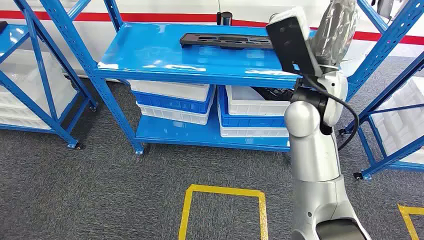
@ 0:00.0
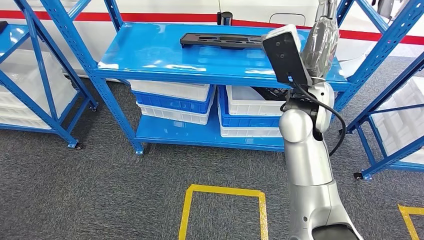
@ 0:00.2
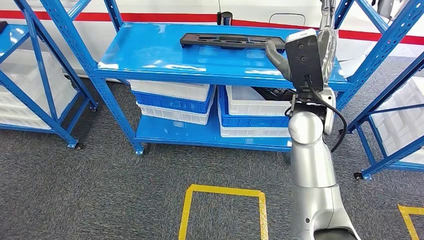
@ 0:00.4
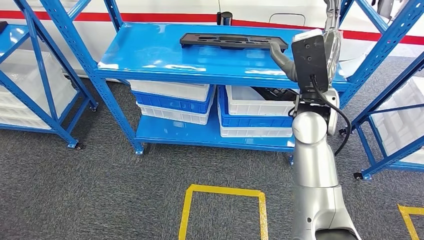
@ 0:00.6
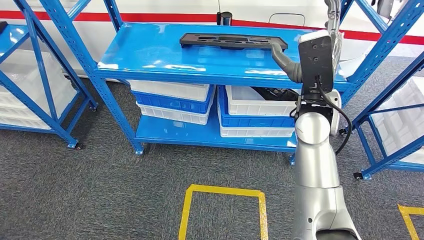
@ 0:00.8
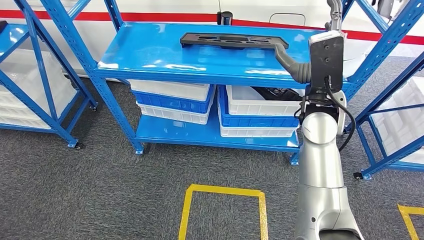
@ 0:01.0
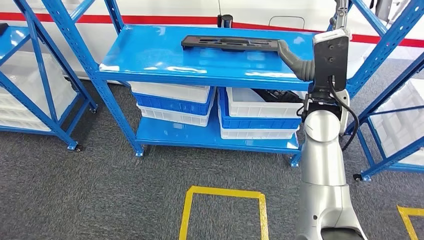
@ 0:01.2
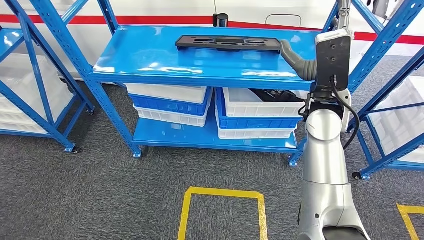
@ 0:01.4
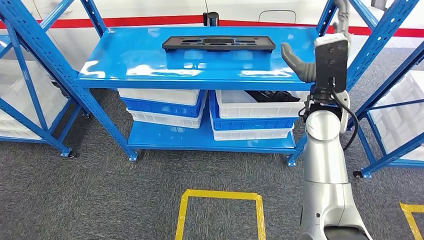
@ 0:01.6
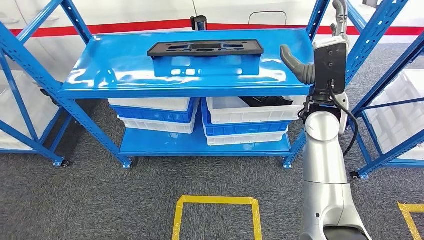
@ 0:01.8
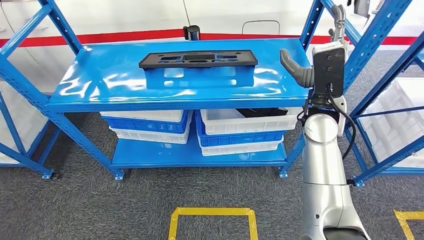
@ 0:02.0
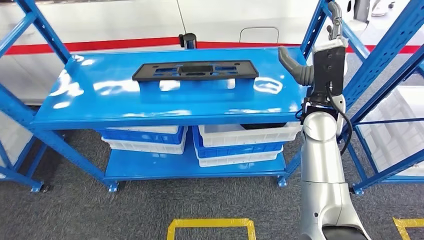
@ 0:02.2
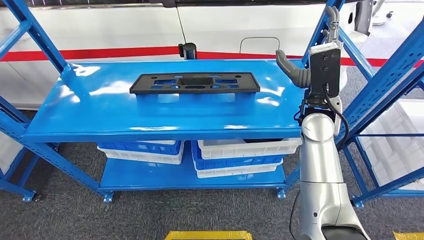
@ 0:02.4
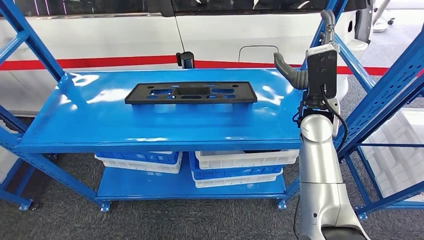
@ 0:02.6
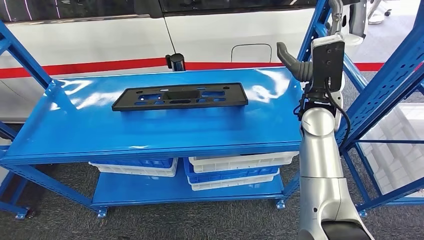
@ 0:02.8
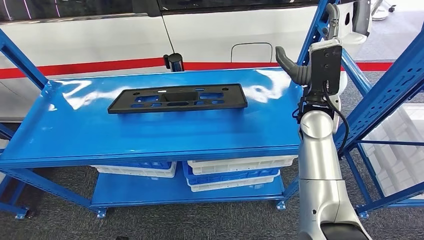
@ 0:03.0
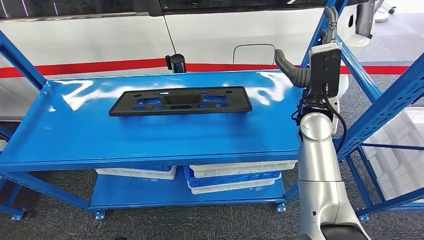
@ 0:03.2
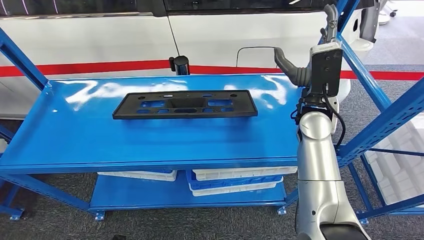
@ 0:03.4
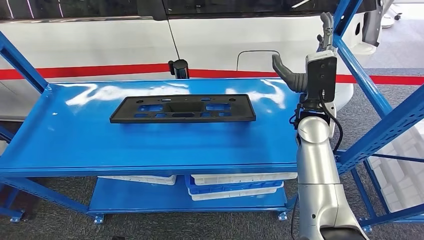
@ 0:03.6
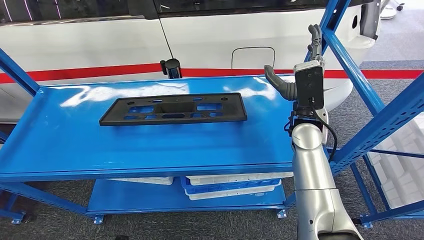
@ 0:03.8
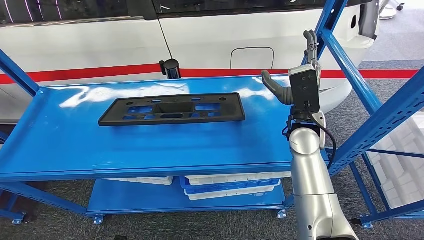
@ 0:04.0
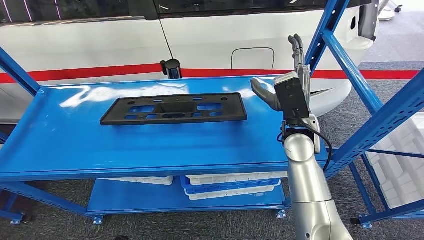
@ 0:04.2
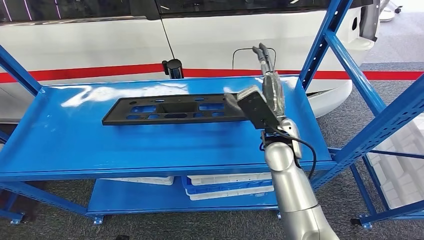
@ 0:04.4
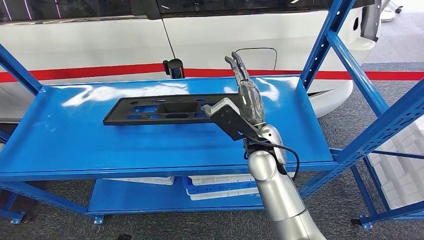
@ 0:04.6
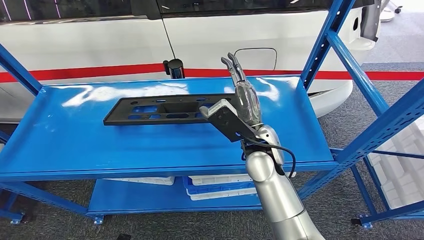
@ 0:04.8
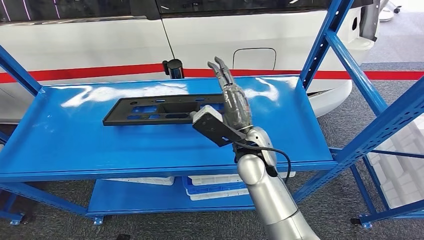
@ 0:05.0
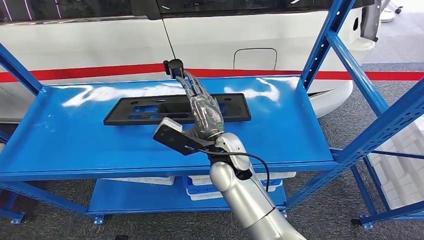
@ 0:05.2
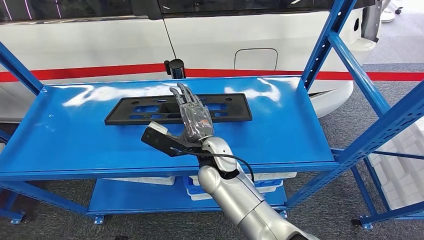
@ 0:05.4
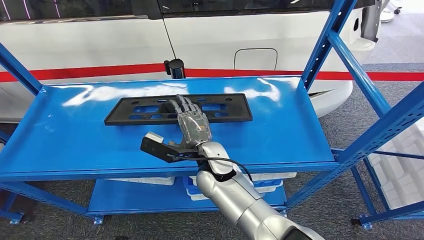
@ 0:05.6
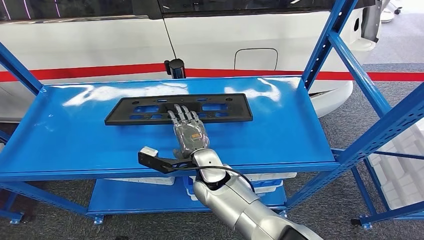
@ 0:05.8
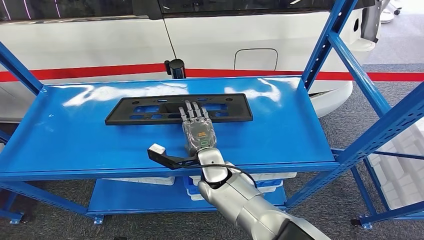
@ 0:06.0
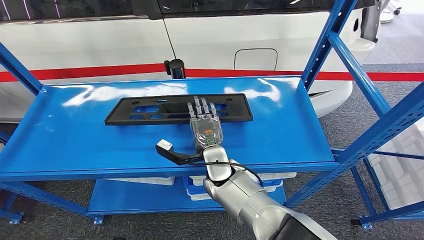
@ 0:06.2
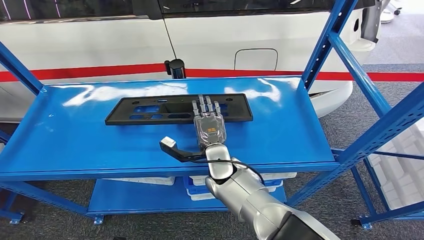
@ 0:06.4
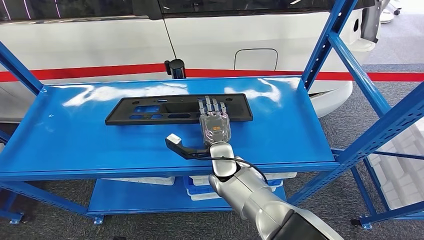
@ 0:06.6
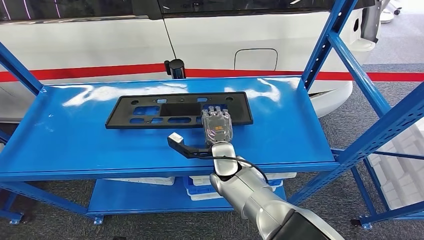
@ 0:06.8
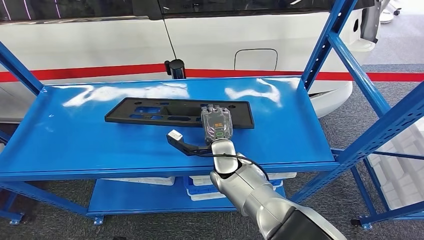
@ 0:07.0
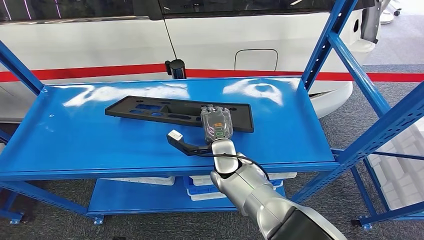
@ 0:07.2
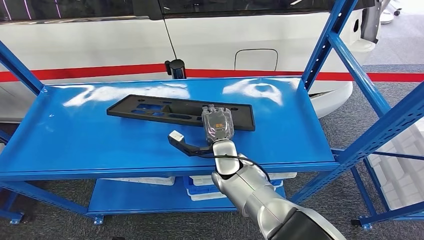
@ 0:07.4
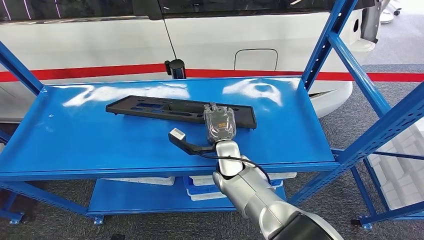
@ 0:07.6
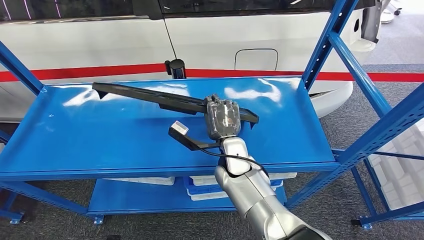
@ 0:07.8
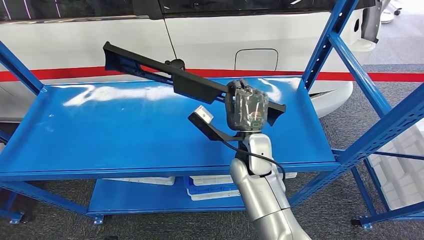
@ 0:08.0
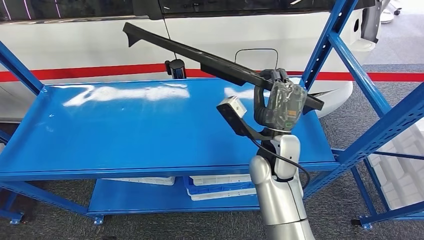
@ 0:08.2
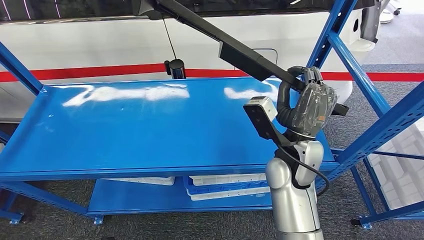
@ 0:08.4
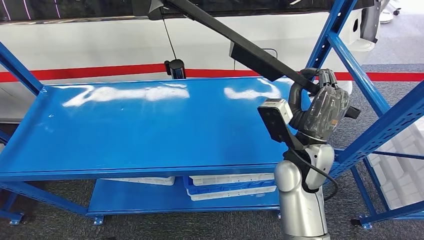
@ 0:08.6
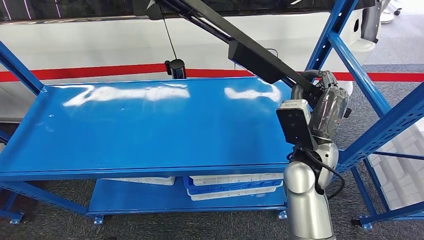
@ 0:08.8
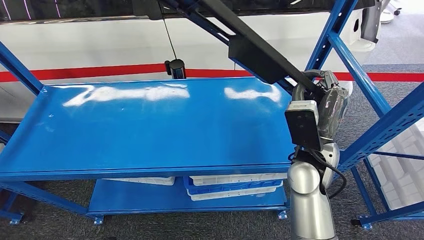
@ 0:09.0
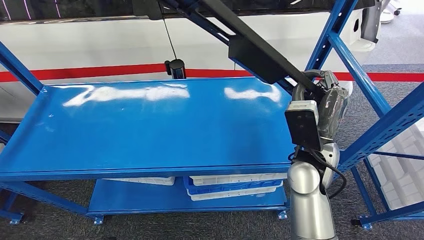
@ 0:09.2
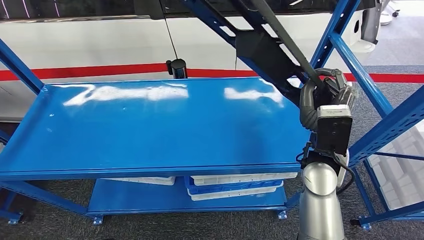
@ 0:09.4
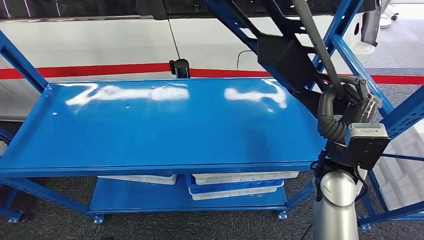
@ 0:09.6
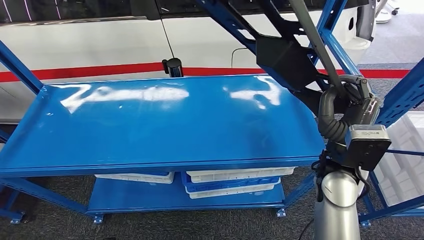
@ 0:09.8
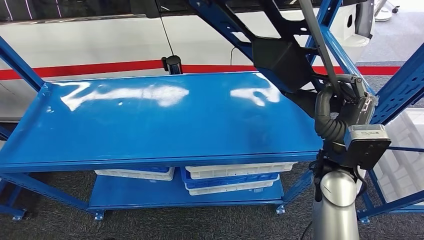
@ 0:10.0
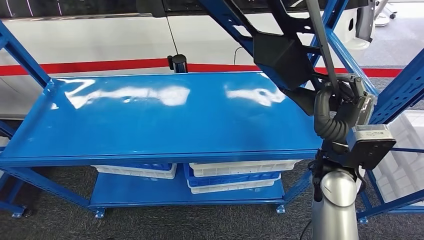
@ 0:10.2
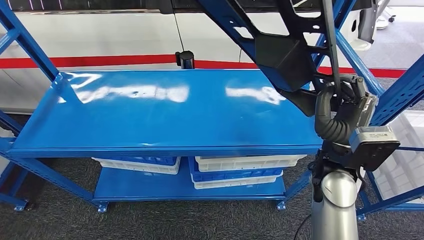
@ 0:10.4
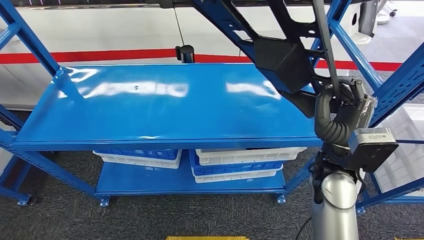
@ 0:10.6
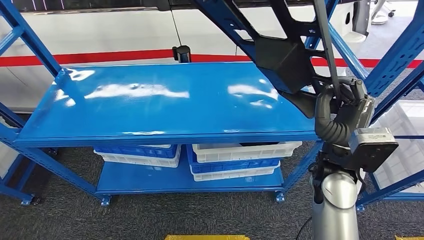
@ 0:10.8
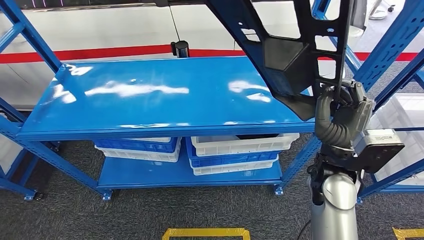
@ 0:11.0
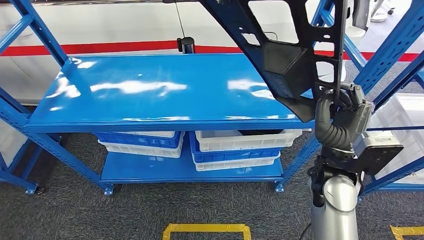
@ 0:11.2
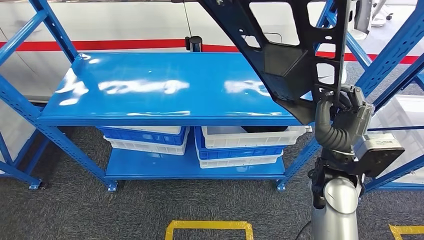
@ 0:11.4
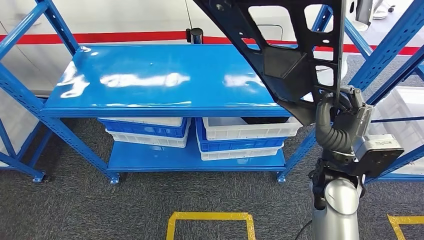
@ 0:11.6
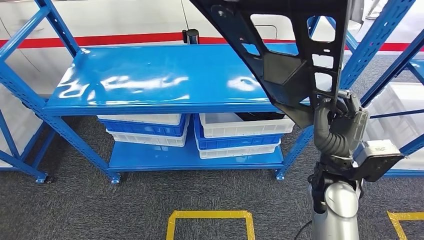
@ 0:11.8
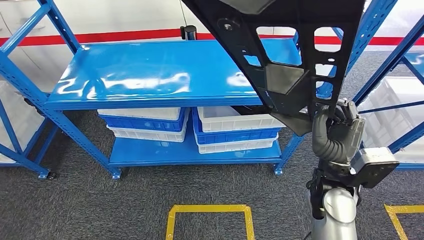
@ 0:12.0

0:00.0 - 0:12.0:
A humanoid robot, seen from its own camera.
Step, 0:00.0 - 0:11.6: Pick up the large material from the shelf.
0:04.4 - 0:06.0: The right hand travels downward and to the left by about 15 cm.
0:06.0 - 0:07.6: The hands move only a little.
0:07.6 - 0:09.0: The right hand moves upward and to the right, some 15 cm.

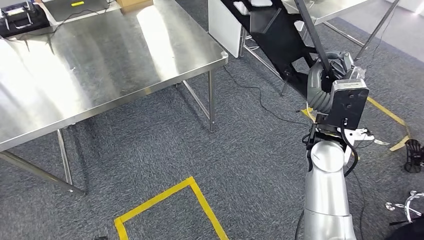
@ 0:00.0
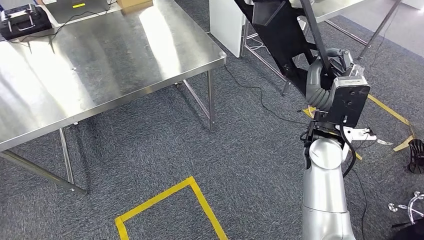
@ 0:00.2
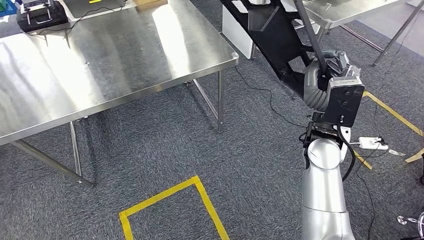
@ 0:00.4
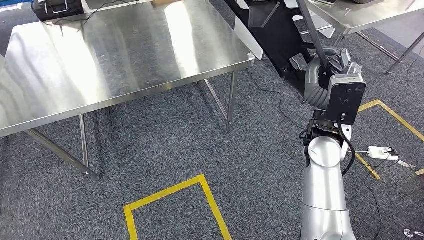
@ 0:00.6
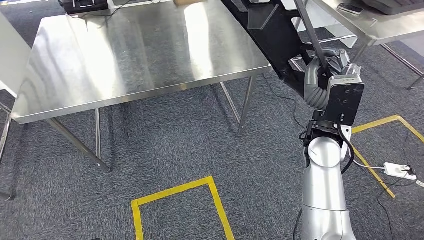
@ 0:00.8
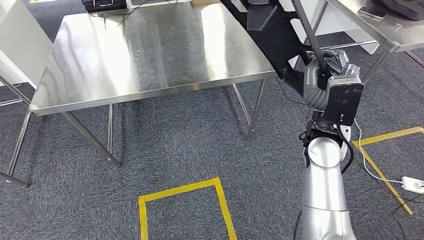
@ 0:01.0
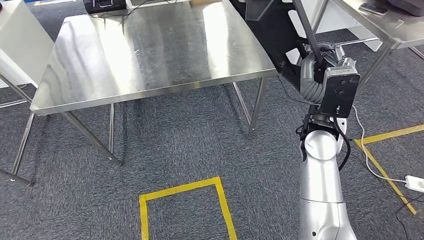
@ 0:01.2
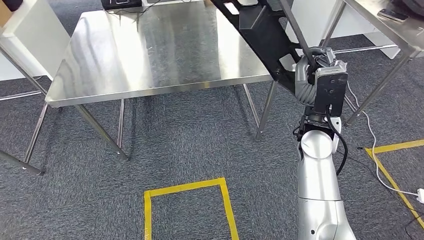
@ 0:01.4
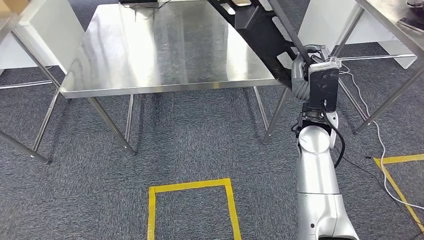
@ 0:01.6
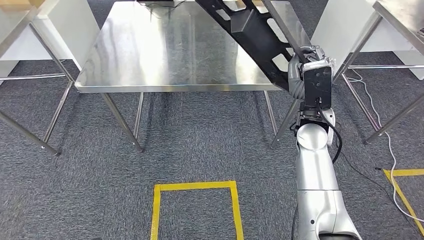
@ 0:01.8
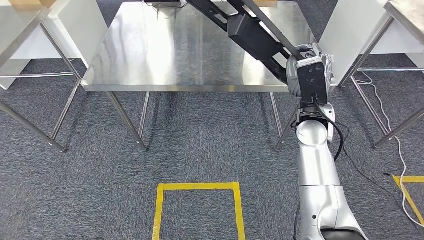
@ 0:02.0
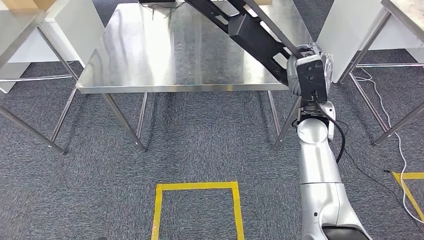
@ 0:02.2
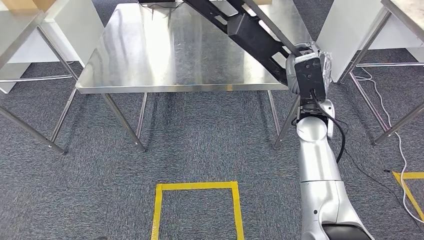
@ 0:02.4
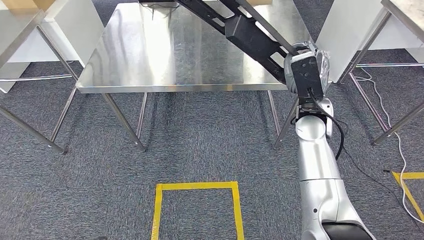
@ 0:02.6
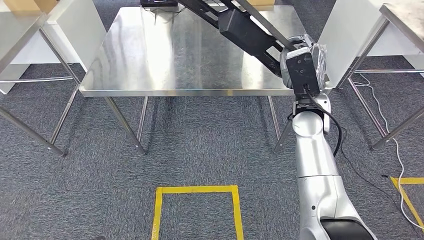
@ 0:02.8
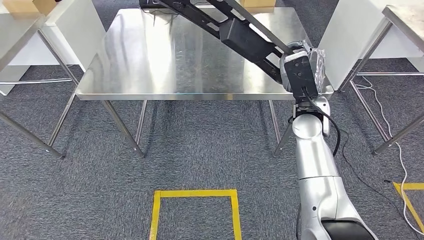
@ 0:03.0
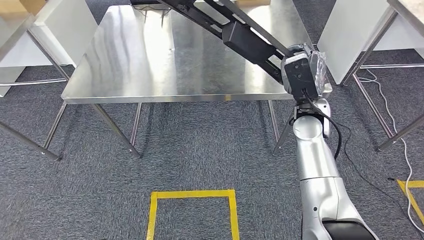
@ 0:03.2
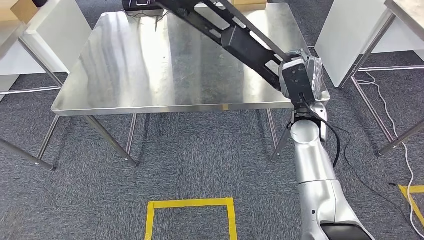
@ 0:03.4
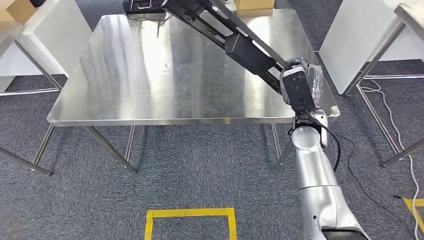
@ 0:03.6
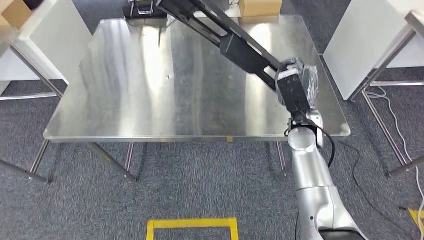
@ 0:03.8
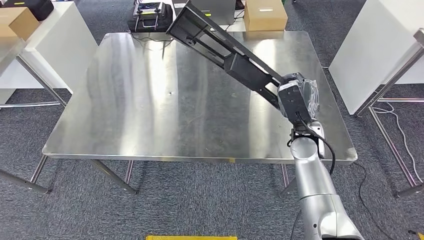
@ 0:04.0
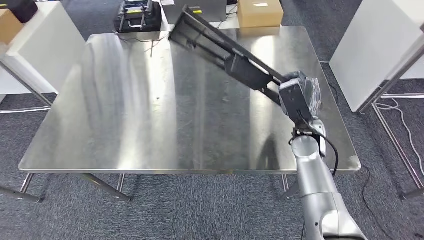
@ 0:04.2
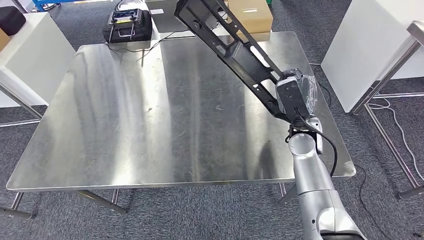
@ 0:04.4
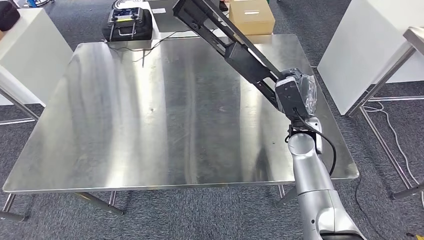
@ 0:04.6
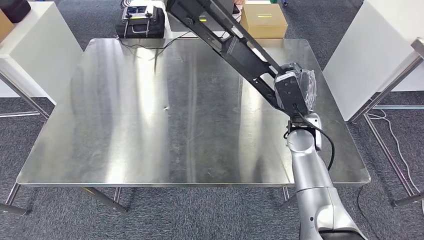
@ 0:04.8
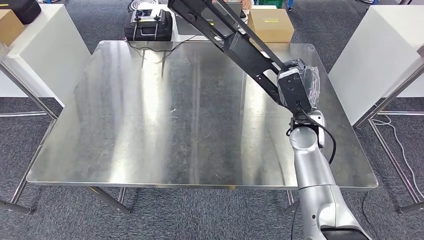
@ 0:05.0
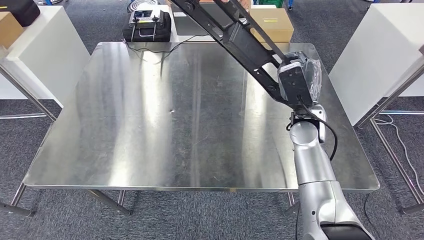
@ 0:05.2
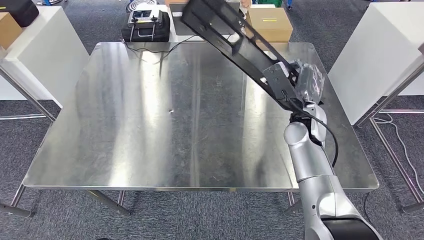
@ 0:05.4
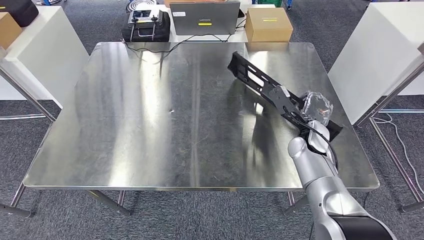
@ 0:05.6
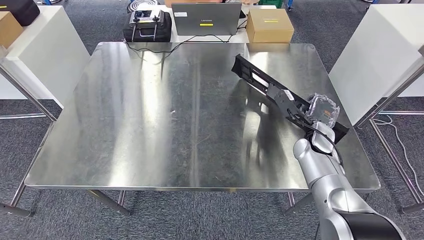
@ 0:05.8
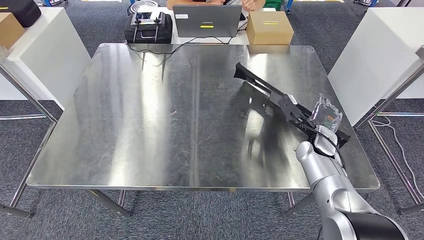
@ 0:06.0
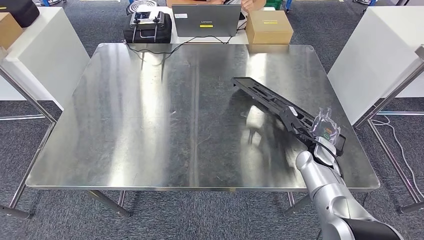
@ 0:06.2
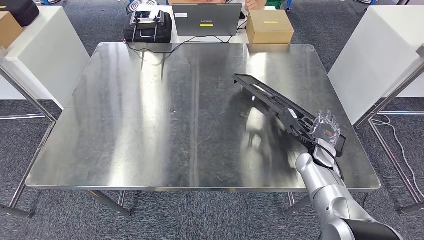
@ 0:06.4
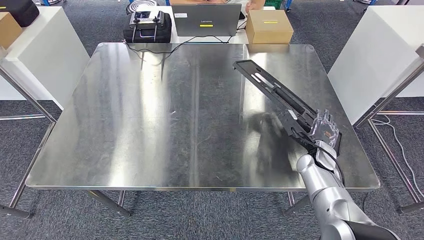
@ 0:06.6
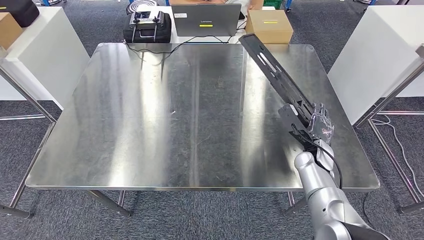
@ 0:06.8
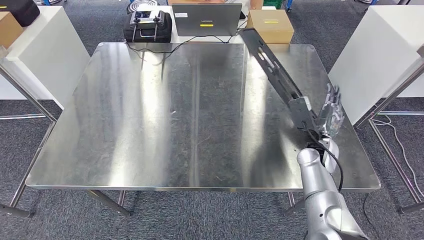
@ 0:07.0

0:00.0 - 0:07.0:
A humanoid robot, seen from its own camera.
Step, 0:00.0 - 0:02.4: Move the large material to the workbench.
